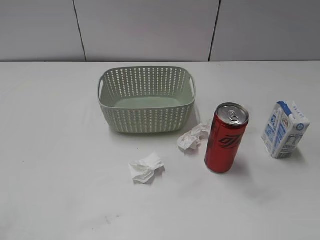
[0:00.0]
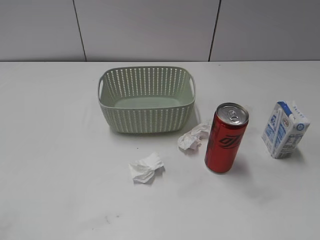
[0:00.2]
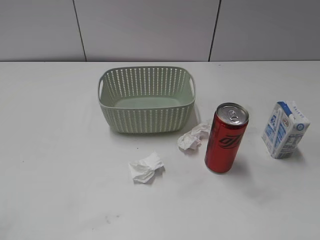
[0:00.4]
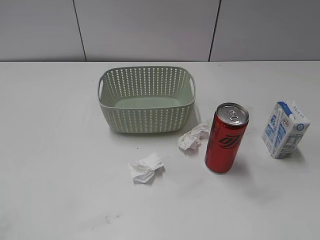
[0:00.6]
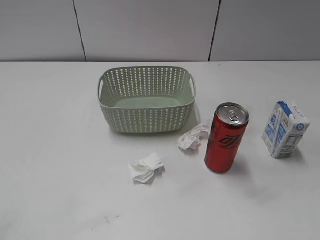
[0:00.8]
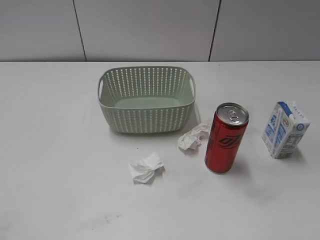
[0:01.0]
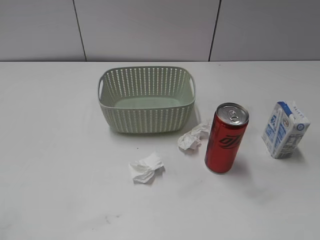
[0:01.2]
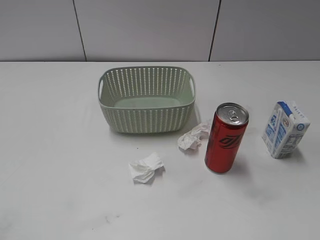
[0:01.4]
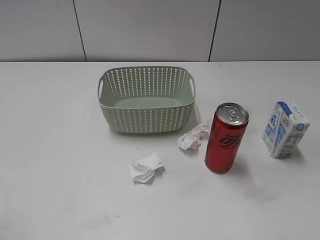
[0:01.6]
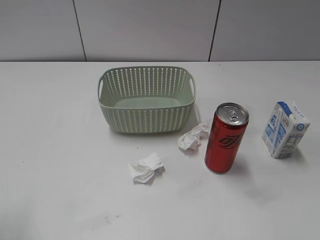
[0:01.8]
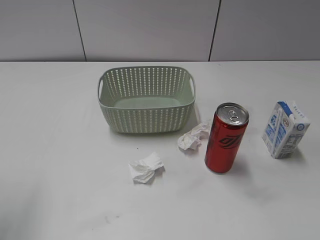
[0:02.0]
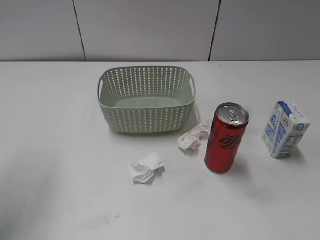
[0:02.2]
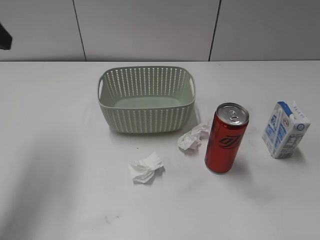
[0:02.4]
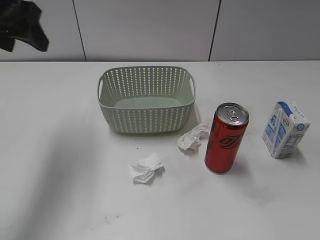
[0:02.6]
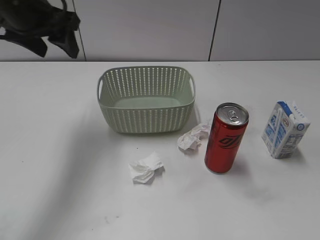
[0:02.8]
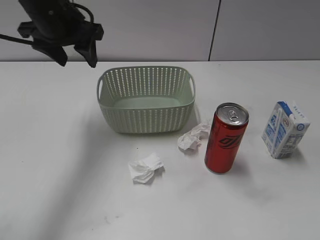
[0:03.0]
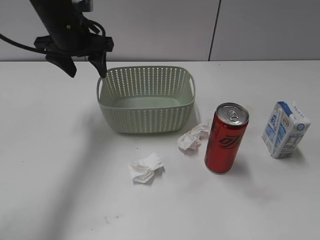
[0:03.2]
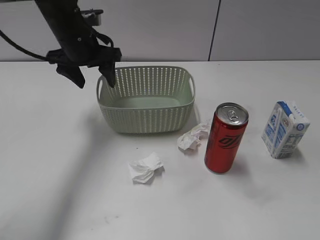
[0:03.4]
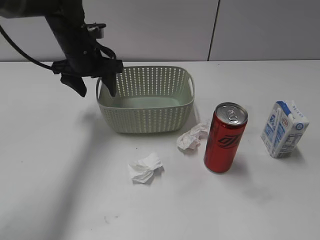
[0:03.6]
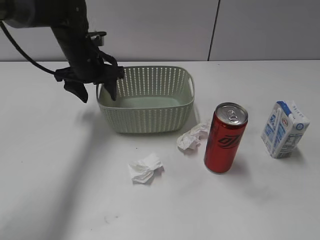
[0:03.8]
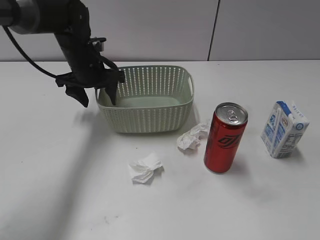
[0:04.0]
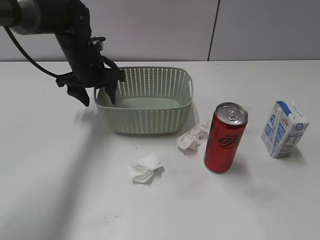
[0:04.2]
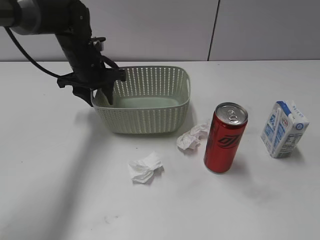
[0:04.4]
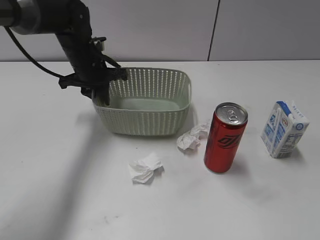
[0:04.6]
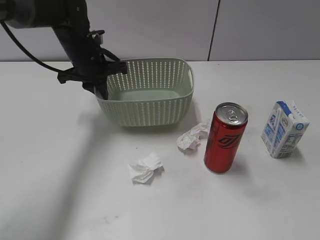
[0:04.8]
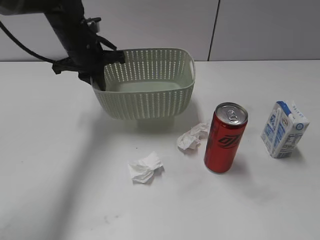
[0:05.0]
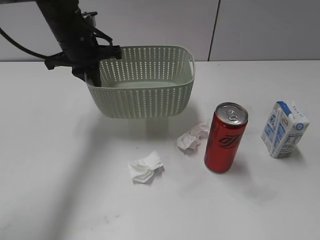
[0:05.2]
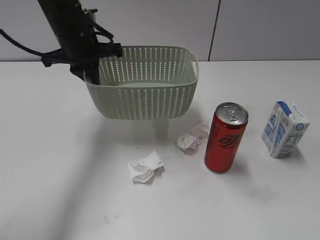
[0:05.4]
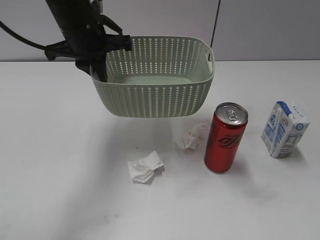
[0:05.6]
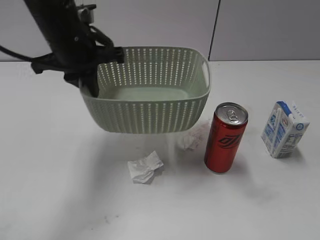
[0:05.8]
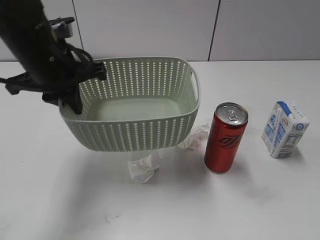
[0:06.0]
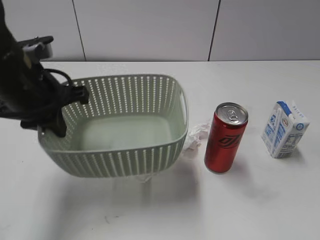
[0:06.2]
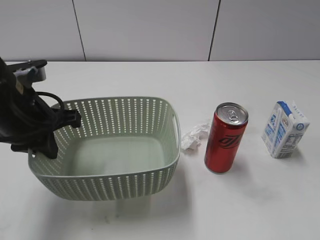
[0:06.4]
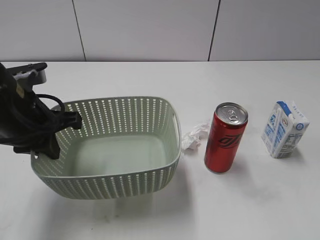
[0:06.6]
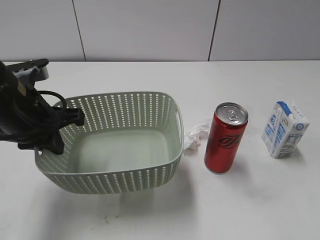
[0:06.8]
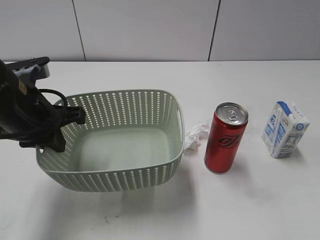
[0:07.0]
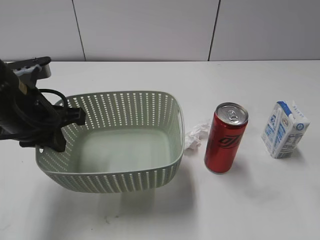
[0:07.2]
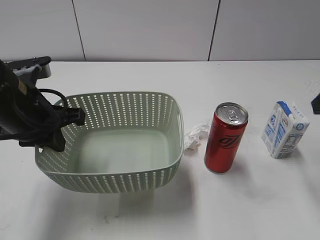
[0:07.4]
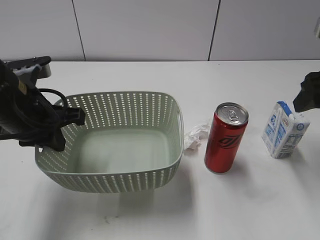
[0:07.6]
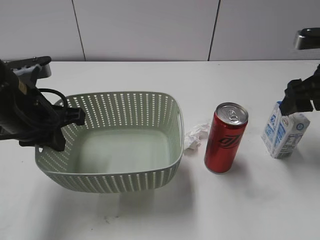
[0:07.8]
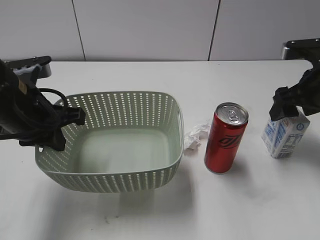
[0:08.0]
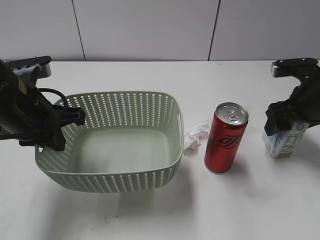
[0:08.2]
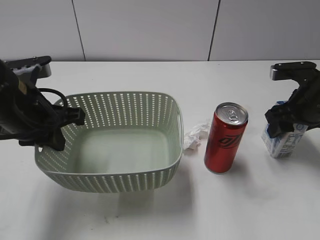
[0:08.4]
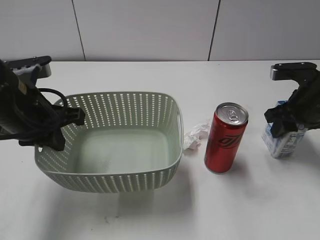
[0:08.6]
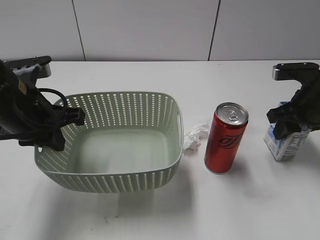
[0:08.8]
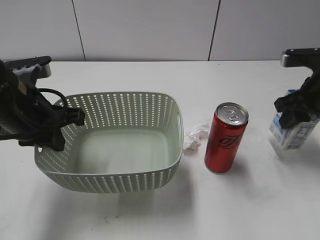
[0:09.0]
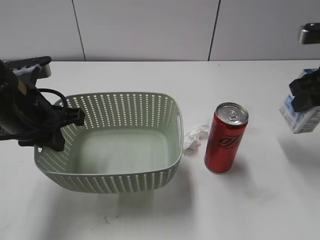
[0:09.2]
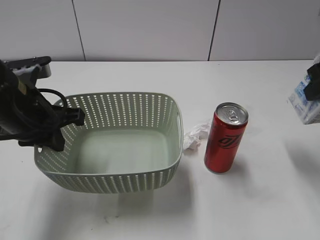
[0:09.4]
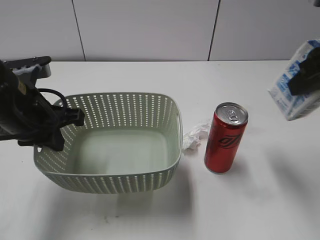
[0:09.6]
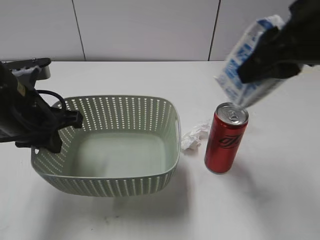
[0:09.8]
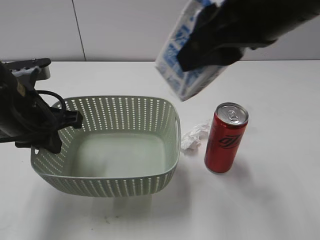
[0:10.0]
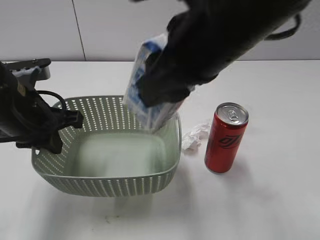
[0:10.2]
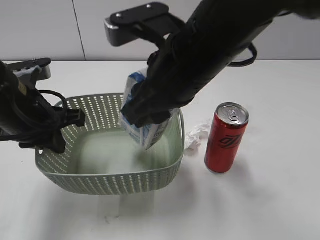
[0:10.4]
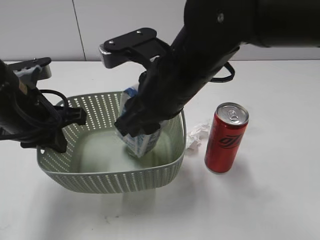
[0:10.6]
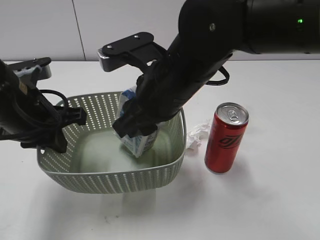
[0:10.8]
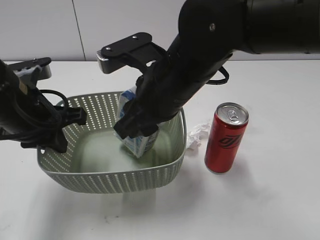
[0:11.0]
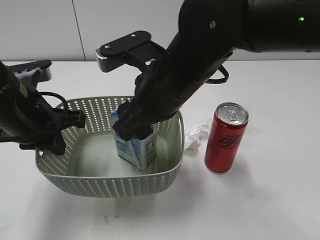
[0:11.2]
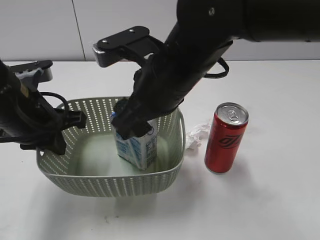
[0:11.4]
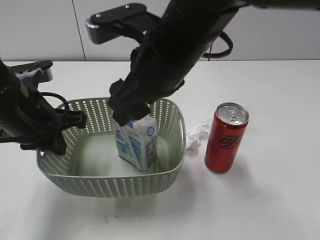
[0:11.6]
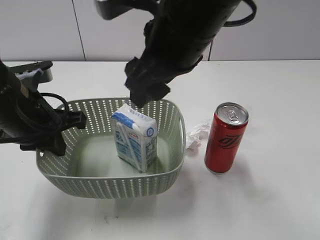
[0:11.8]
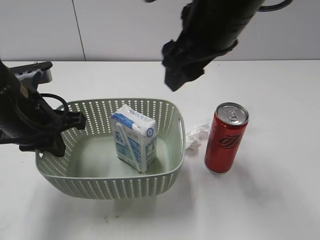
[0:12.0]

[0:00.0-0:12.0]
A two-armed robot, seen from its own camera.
Step, 2.4 to 4.6 s: Grasp the basket with left gripper.
Step, 4.8 to 6.6 s: Lift the basket with left gripper.
Step, 6.8 to 8.6 s: Grasp the milk with right gripper.
Step, 8.8 to 11.6 s: Place the milk in the basket with right gripper.
1.6 to 3.0 s: The left gripper heads forward and to the right, covering about 35 cm.
3.0 to 4.4 s: The left gripper is displaced downward by approximately 10 cm.
4.4 to 6.0 s: The left gripper is displaced backward and upward by roughly 15 cm, and closes.
6.0 to 7.6 s: The left gripper travels backward by about 5 cm, while the right gripper travels forward by roughly 25 cm.
7.6 to 9.0 s: The right gripper shifts roughly 5 cm downward, and closes.
9.0 to 10.4 s: The right gripper travels to the left by some 25 cm.
10.4 to 12.0 s: The right gripper goes approximately 5 cm upward, and opens up.

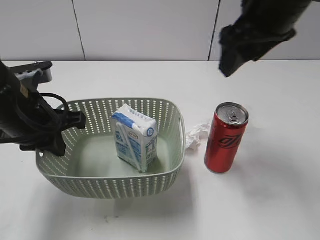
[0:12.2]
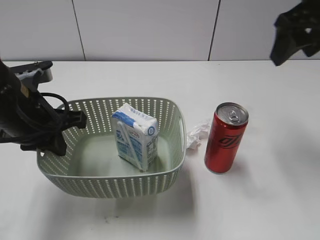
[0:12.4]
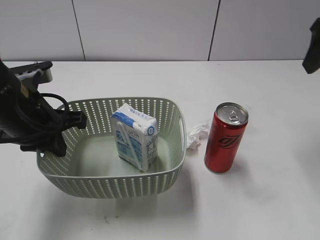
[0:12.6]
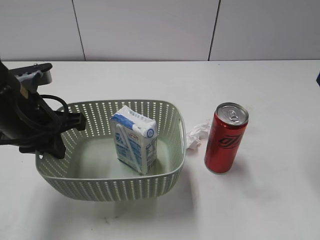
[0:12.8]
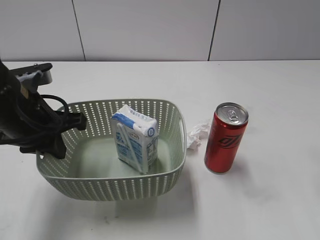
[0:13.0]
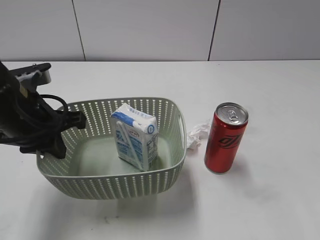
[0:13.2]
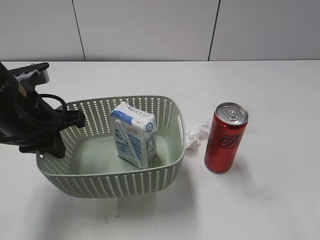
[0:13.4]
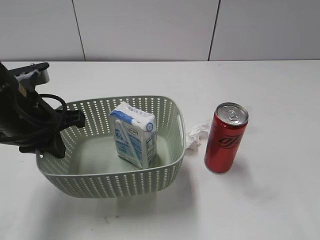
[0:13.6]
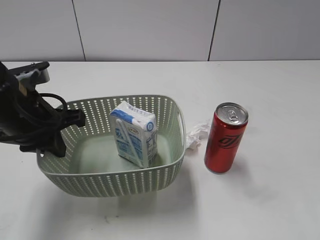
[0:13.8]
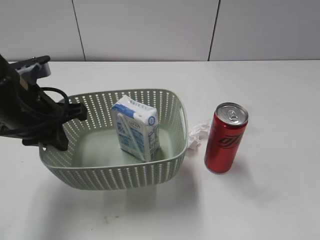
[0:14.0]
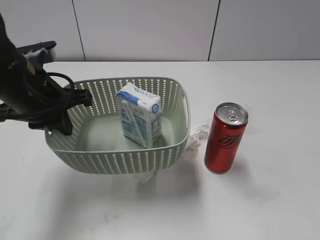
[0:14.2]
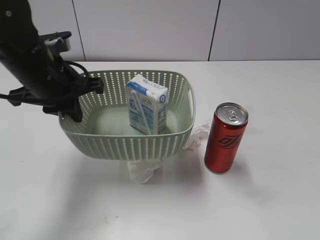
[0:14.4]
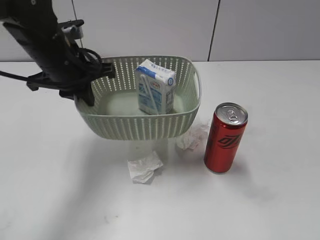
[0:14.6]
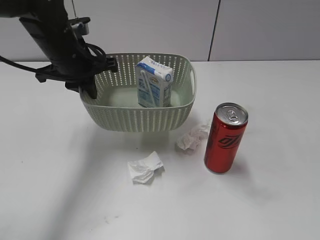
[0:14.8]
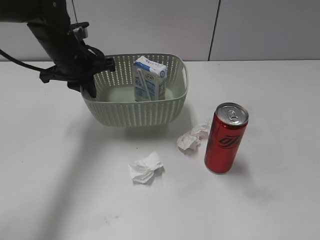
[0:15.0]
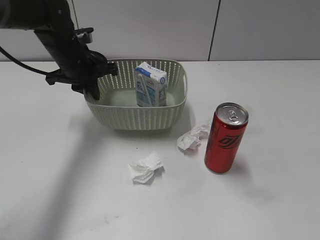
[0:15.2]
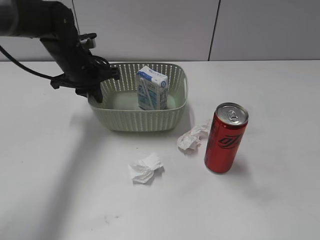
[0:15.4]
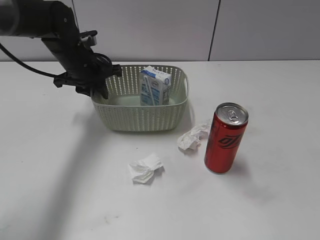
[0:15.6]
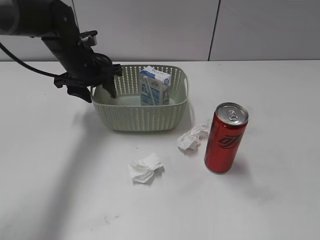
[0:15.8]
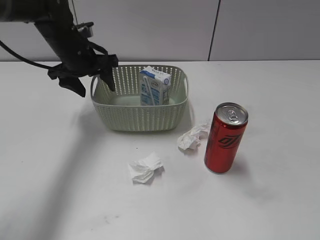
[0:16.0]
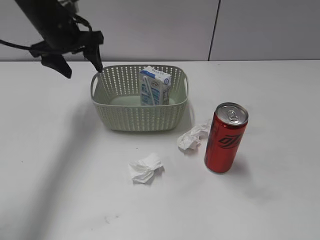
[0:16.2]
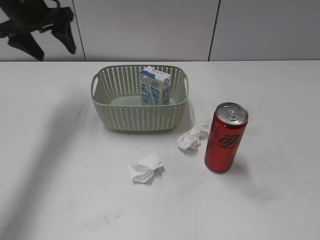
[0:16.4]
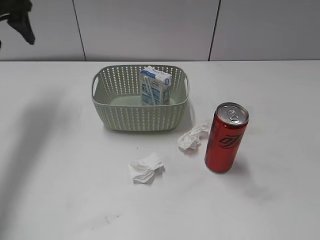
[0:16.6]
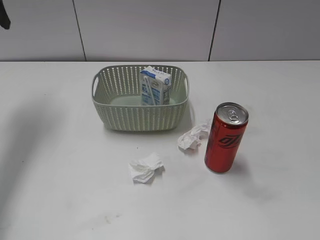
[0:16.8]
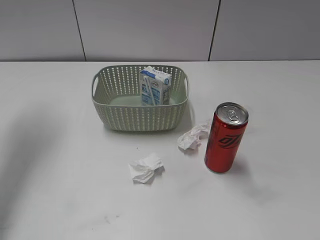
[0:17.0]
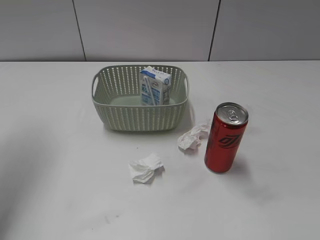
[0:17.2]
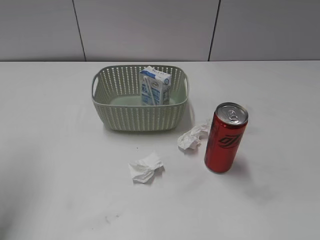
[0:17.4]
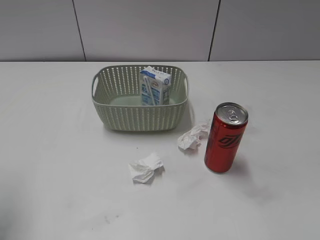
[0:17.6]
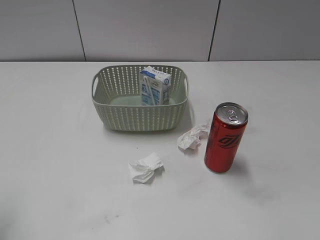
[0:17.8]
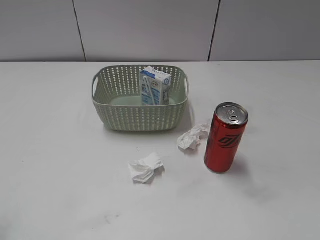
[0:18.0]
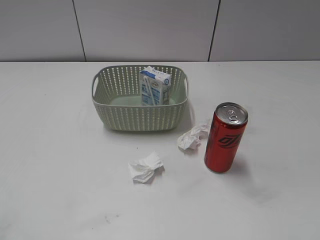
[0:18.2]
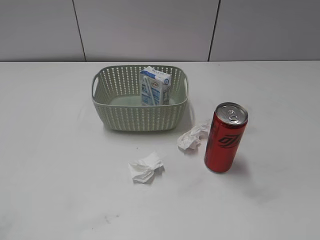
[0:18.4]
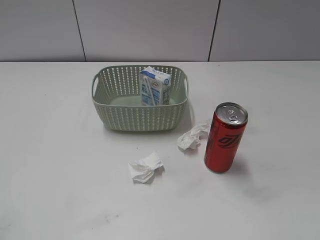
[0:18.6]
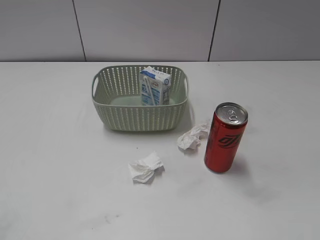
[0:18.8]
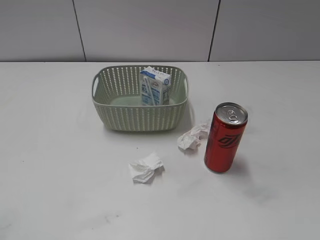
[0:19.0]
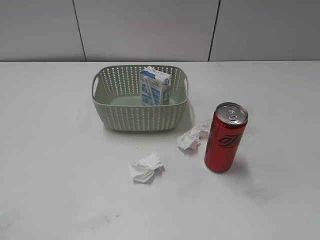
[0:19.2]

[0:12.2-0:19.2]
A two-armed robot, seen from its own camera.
Step, 12.2 to 16.2 s: Place the basket on the table with left gripper.
12.2 to 13.6 s: The right gripper goes about 30 cm backward and to the right.
13.6 to 15.0 s: The left gripper shifts roughly 15 cm forward; the right gripper travels backward by about 5 cm.
15.0 to 16.4 s: The left gripper shifts some 10 cm upward and to the left, and opens its fingers.
16.4 to 17.8 s: The left gripper is displaced backward by approximately 30 cm.

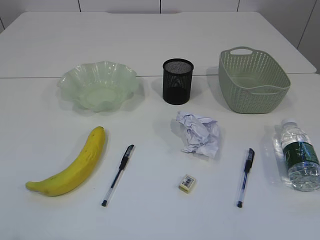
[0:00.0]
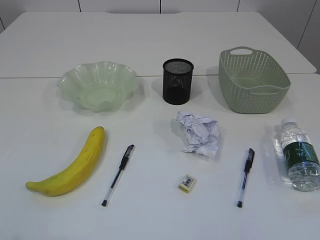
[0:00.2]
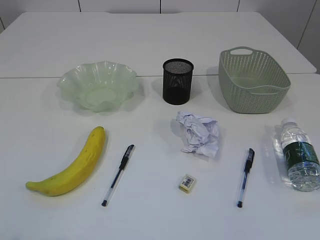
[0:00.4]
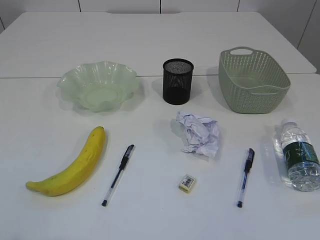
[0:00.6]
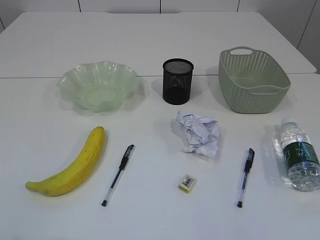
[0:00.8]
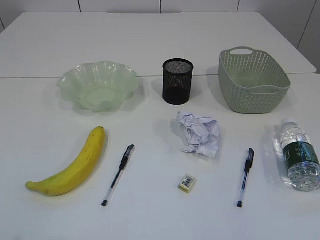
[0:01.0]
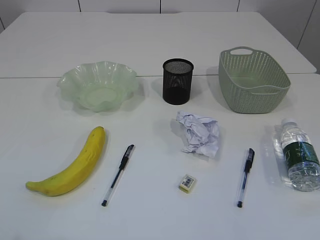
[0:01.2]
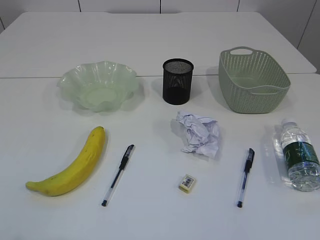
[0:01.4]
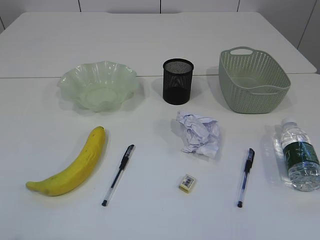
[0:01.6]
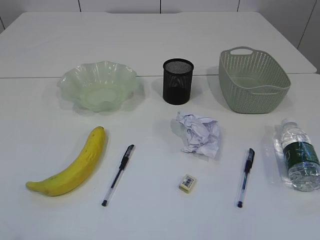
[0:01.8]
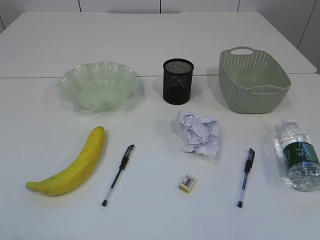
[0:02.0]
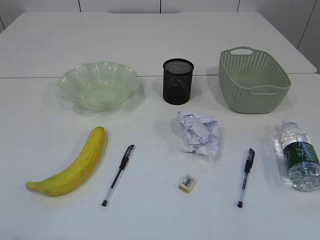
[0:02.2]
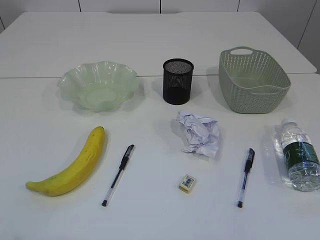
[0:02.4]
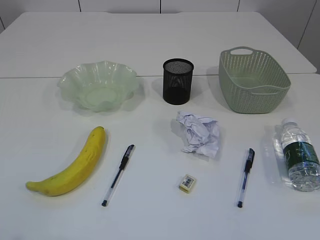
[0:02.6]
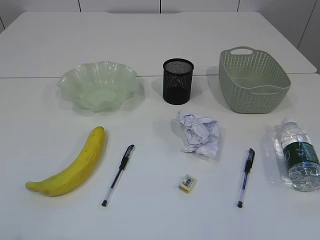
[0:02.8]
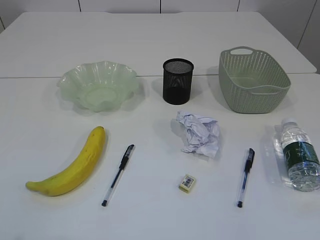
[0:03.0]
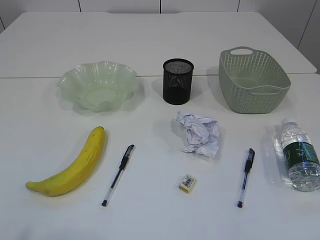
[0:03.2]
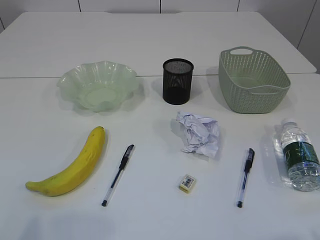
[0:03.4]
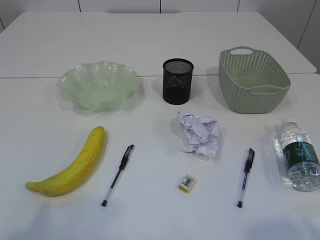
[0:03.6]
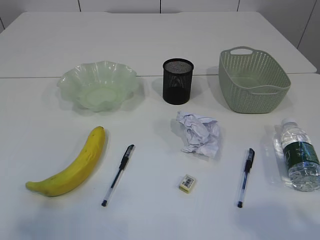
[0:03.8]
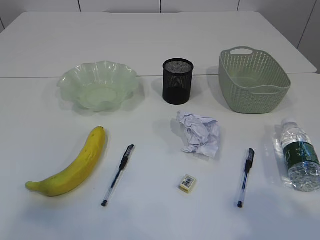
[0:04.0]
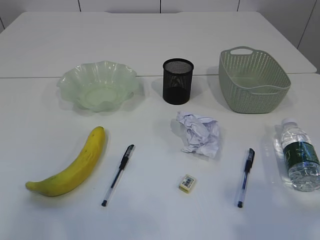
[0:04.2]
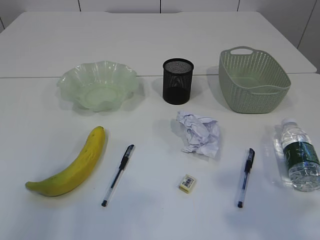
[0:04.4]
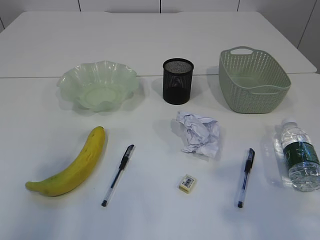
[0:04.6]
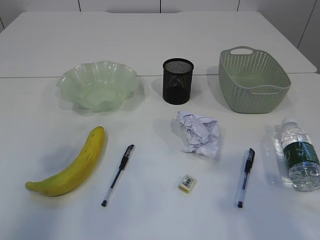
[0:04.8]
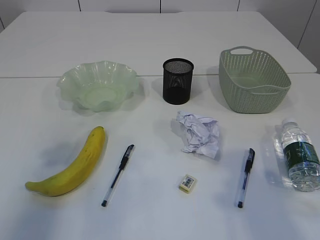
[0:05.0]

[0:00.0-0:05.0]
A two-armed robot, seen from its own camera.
3.4 to 5.0 s: The right gripper goes about 15 cm forward and upward; the left gripper shifts roughly 20 cm forward.
